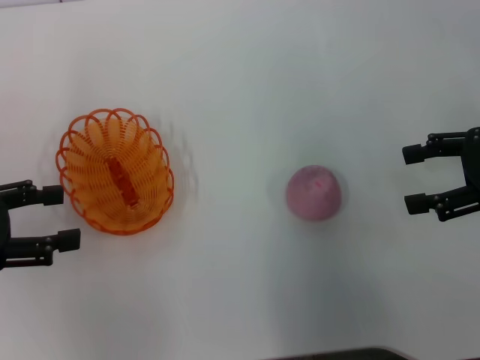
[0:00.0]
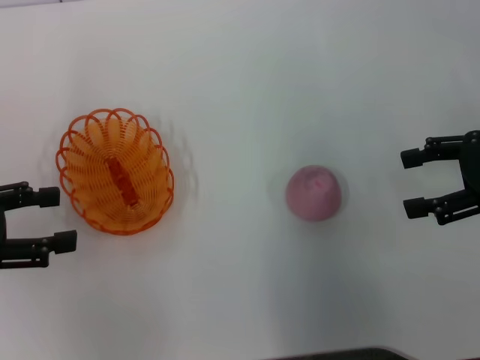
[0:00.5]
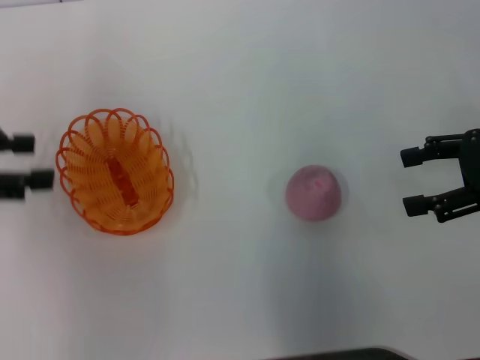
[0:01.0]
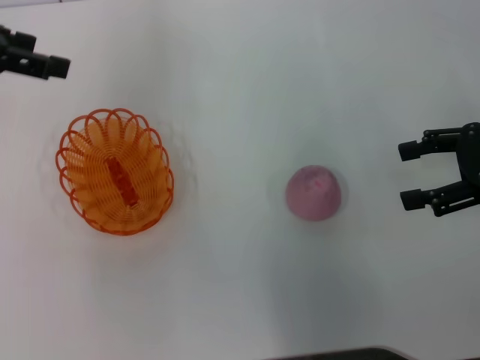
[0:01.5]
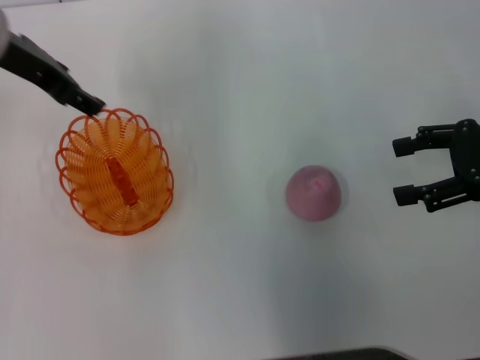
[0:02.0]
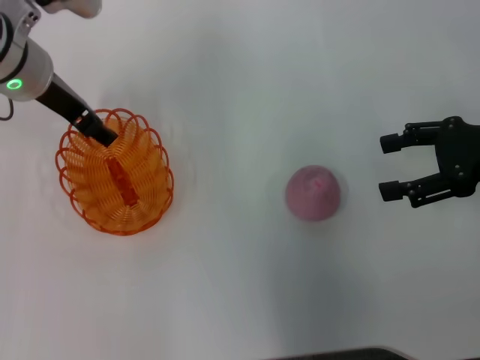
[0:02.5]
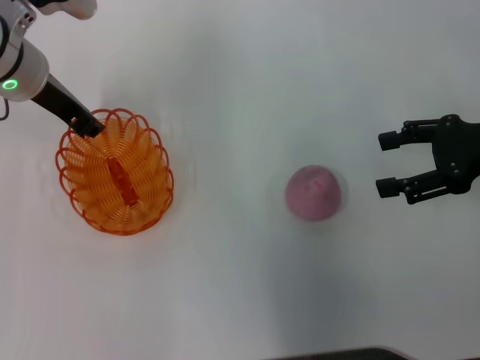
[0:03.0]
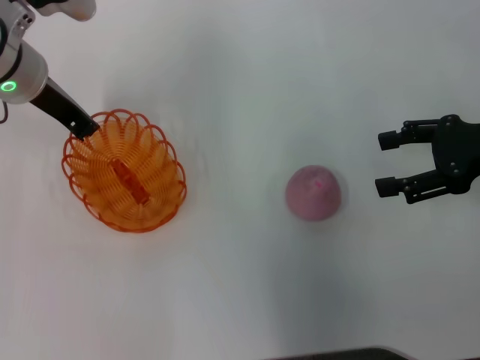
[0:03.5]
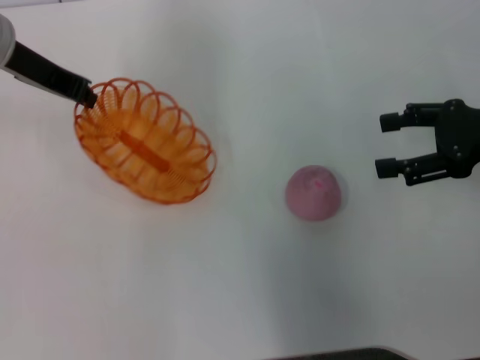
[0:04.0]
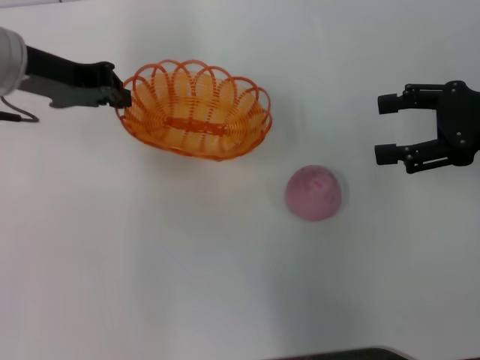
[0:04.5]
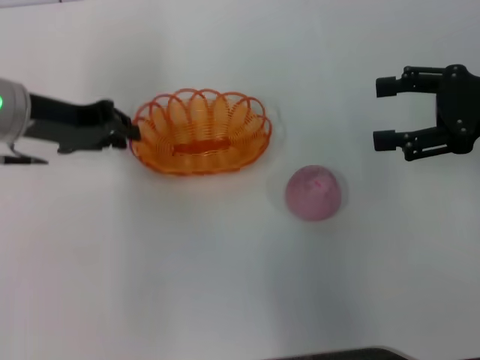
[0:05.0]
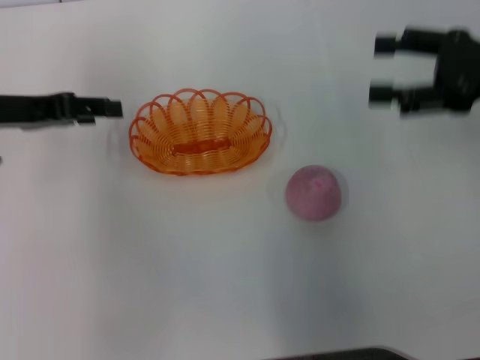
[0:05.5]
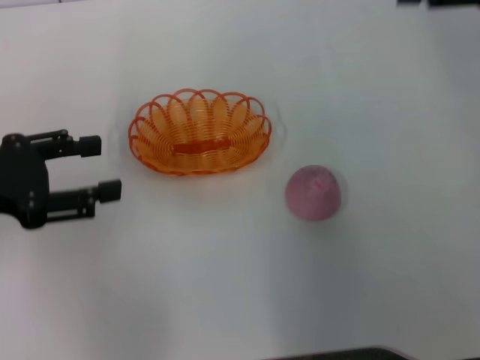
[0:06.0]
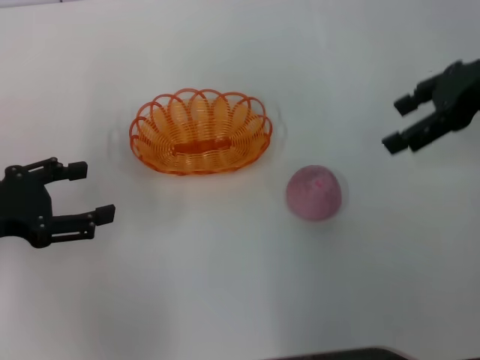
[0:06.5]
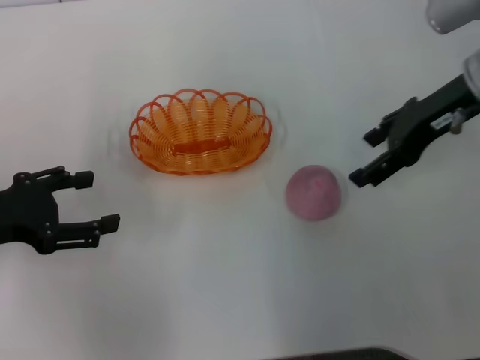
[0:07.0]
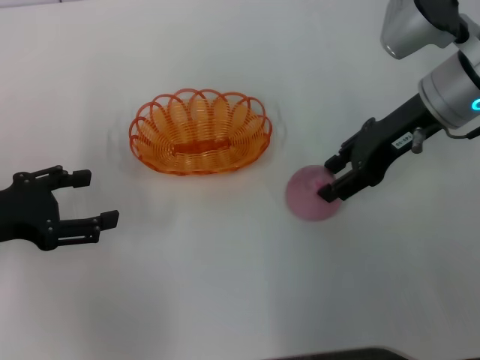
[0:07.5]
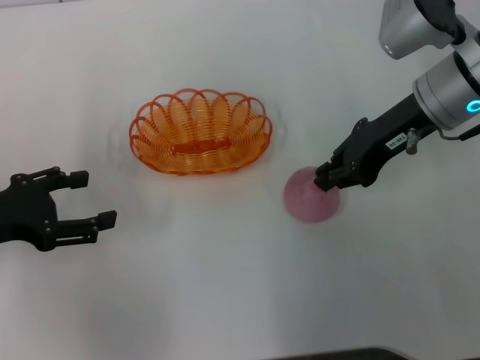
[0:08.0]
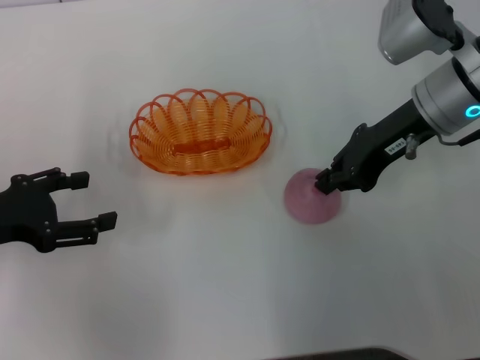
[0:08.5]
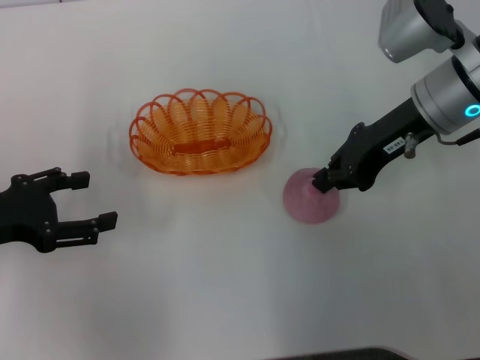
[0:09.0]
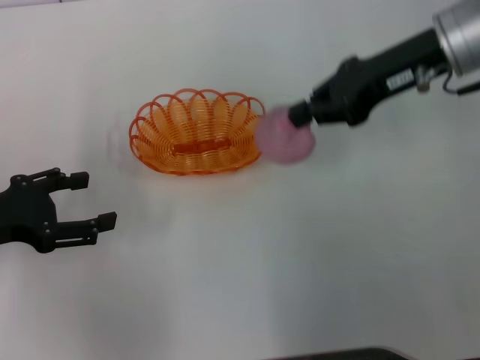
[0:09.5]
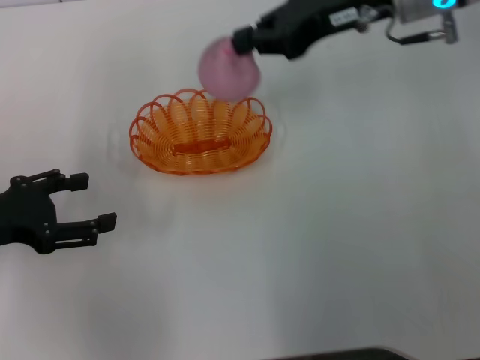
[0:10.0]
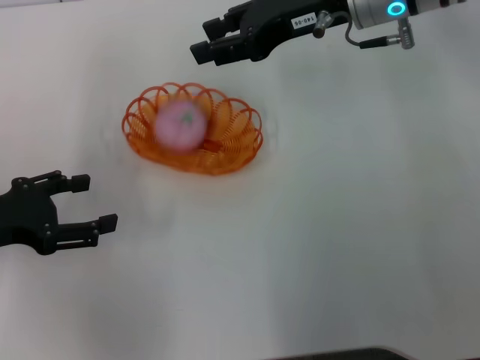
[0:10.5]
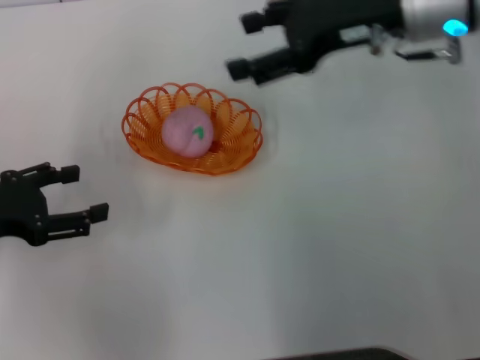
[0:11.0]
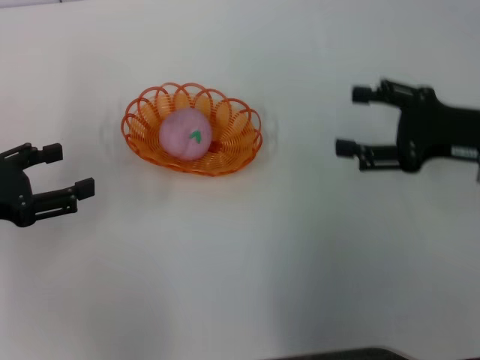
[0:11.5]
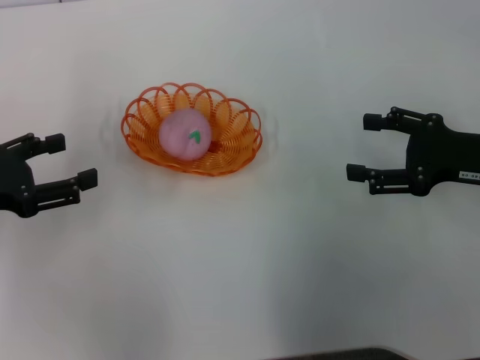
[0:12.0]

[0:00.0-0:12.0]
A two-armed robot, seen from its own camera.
Step, 0:00.0 to 0:04.0: Pick up the basket with the left gripper.
Step, 0:04.5 to 0:05.5: Place the basket in the center of view with the left gripper.
Step, 0:06.0 to 0:09.5: Pick up the peach with the right gripper.
Step, 0:10.0 to 0:11.0: Place the peach into the basket with the right gripper.
0:00.0 to 0:02.0: The left gripper travels forward, to the right and upward by some 20 cm.
0:02.0 to 0:04.0: The left gripper closes up.
0:04.0 to 0:06.0: The right gripper shifts about 10 cm upward and forward. The left gripper is displaced backward and to the left by about 15 cm, and opens up.
0:06.0 to 0:08.0: The left gripper shifts some 5 cm downward. The right gripper heads to the left and downward, covering roughly 15 cm, and closes its fingers.
0:08.0 to 0:10.0: The right gripper is displaced upward by approximately 5 cm.
0:10.0 to 0:12.0: The right gripper is displaced backward, to the right and downward by about 20 cm, and opens.
